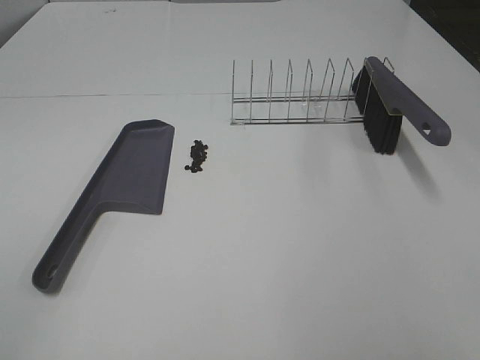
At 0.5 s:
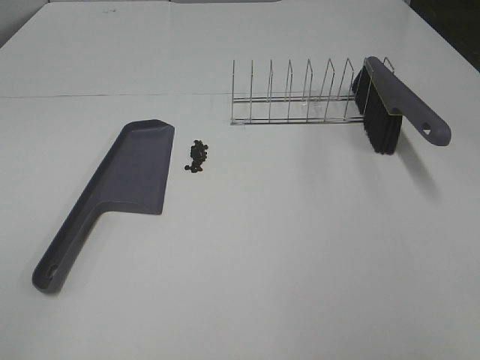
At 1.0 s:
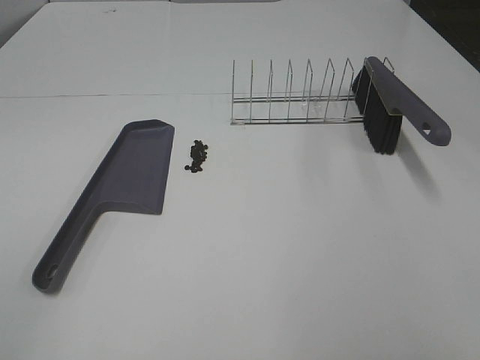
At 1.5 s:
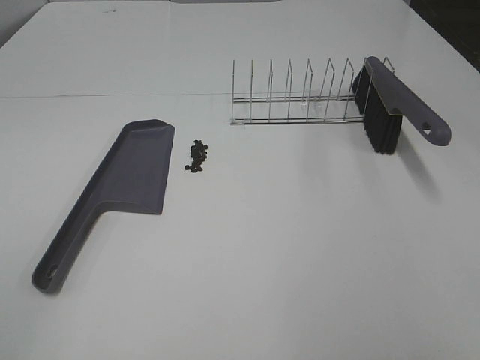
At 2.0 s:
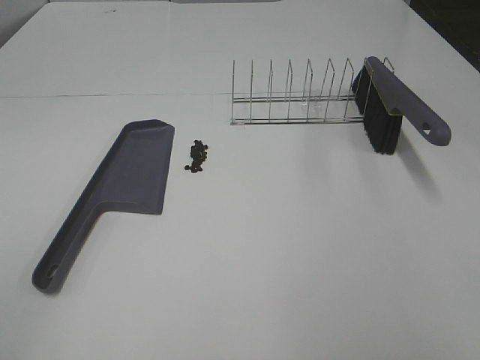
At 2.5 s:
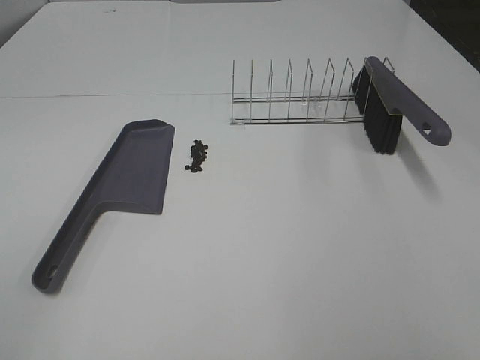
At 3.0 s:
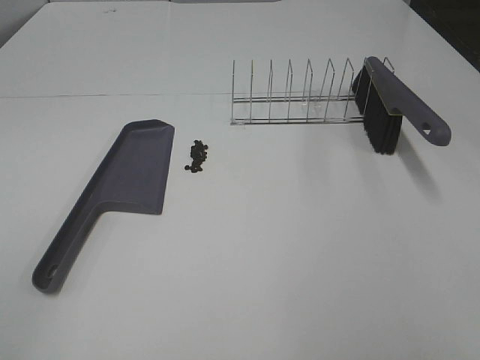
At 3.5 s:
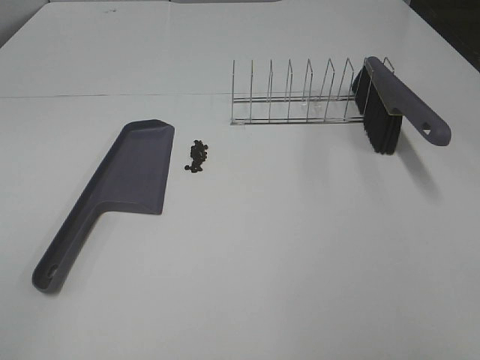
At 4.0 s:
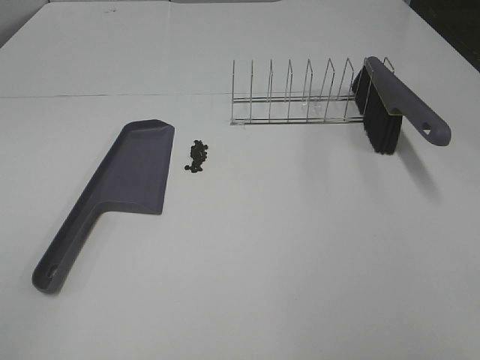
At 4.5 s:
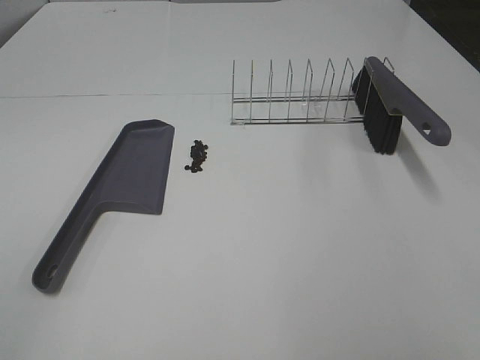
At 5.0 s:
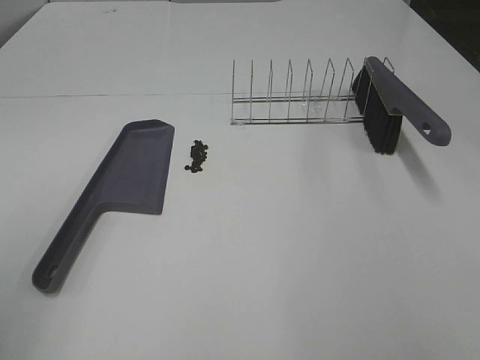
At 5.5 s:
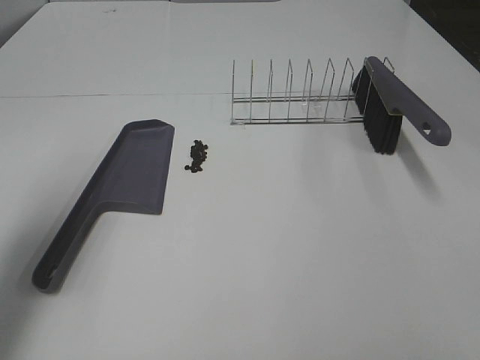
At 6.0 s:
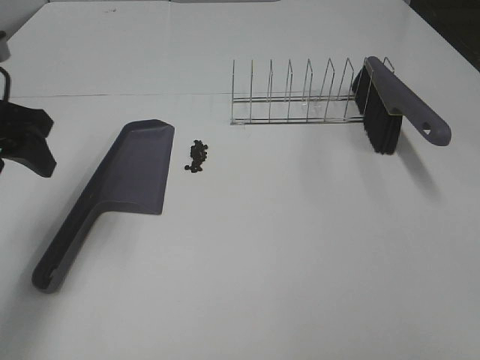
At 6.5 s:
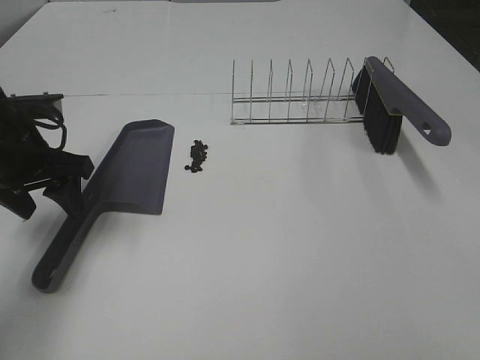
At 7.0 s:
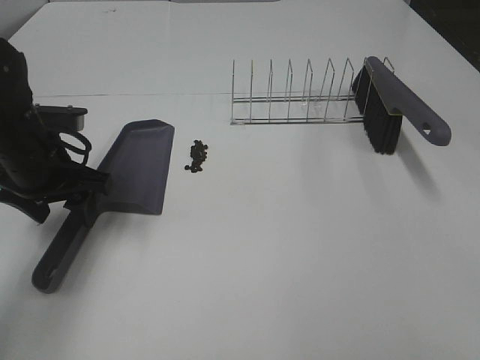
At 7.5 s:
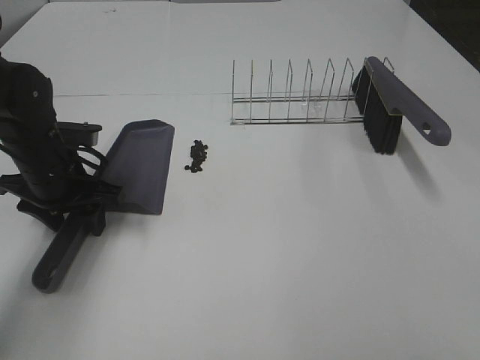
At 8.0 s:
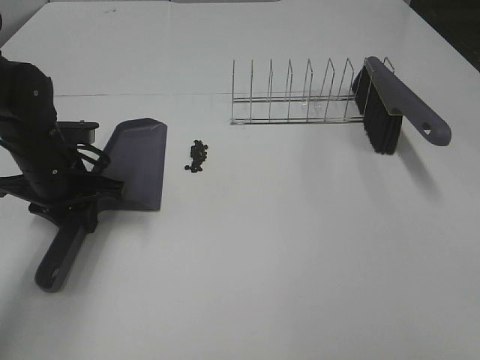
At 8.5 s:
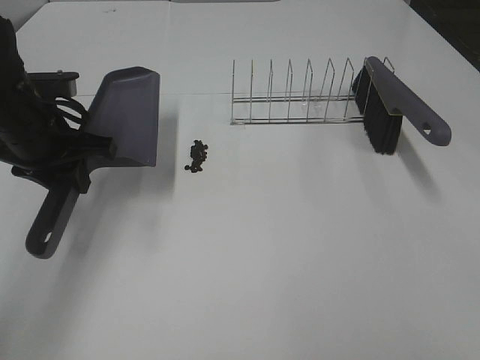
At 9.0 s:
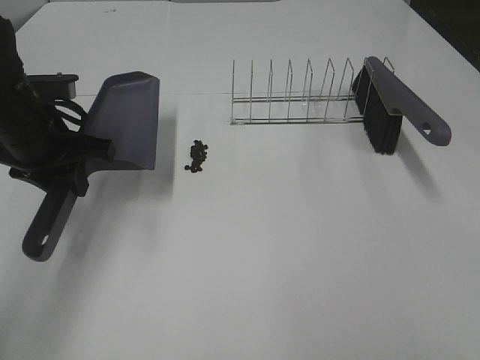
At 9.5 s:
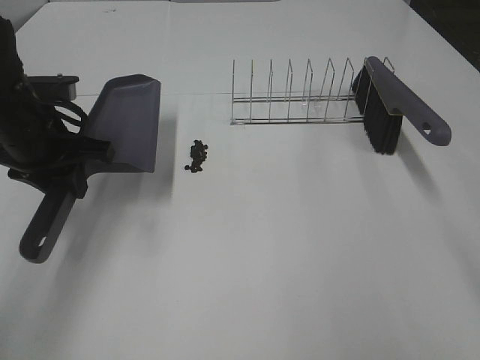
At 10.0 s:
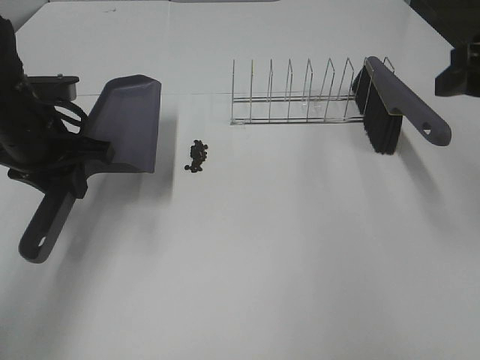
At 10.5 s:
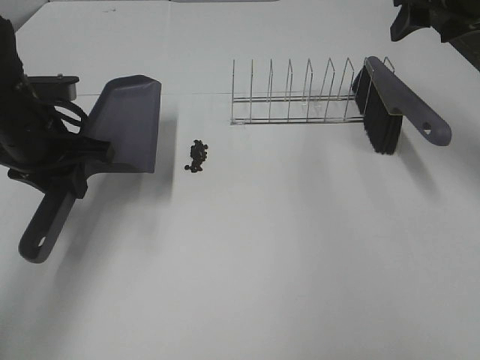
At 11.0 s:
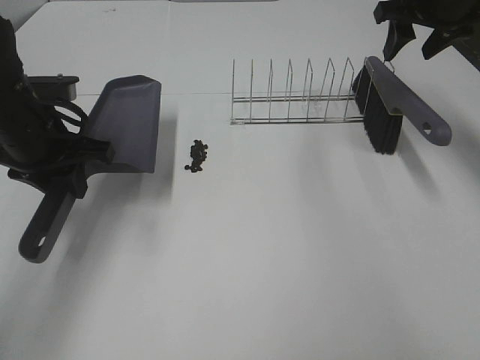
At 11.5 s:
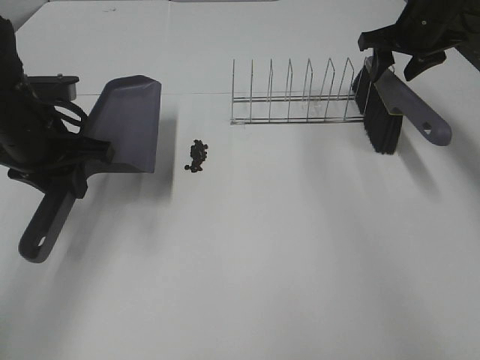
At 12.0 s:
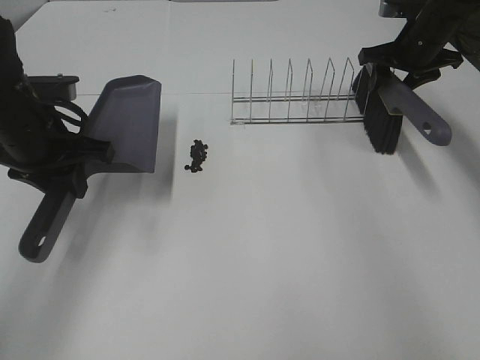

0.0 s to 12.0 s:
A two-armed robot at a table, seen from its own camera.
Task of the whole recording: Sweep Coffee Bean.
Step, 0.0 to 8.0 s: Left hand: grab the dustpan.
0.0 to 4.0 s: Both grippers stay about where they are.
4.0 to 6.0 s: The left gripper is displaced forward by some 30 cm.
6.0 to 8.0 s: The left gripper heads downward, covering roughly 15 cm, and closes up.
8.0 to 10.0 s: The right gripper shifts roughly 25 cm forward. Meanwhile the left gripper travels upward by about 5 cm.
10.0 to 12.0 s: The right gripper goes about 30 cm forward and downward.

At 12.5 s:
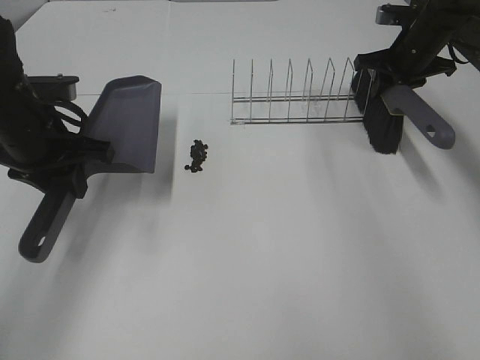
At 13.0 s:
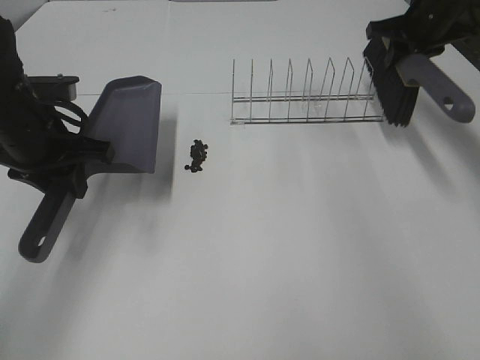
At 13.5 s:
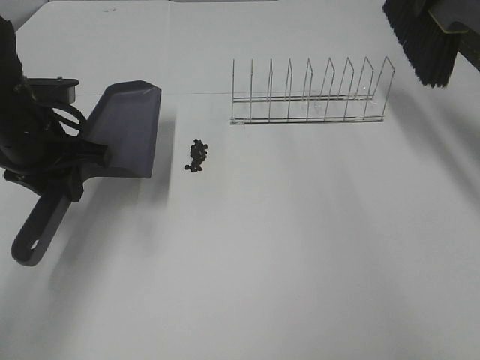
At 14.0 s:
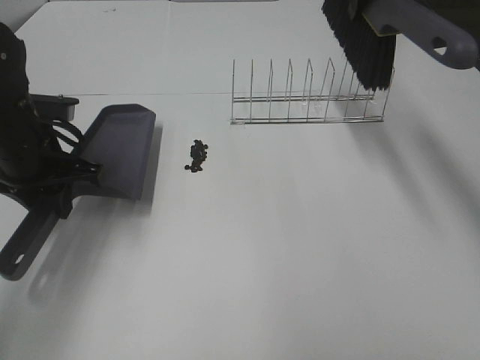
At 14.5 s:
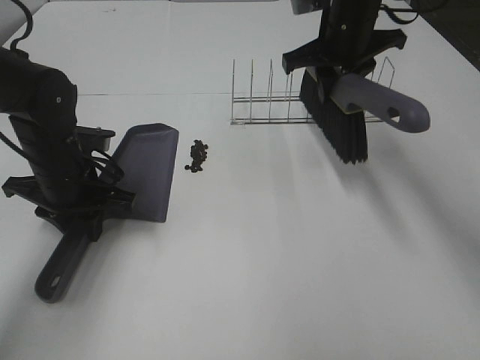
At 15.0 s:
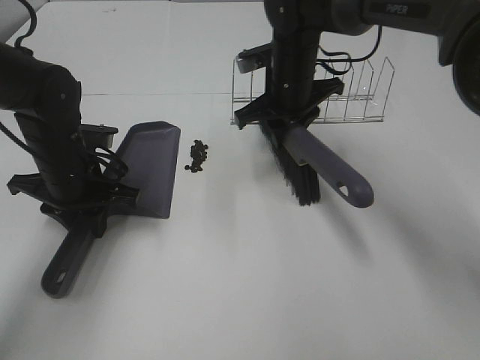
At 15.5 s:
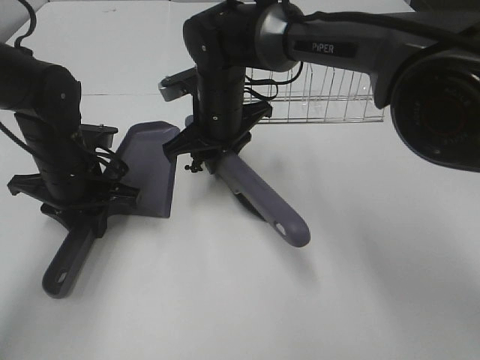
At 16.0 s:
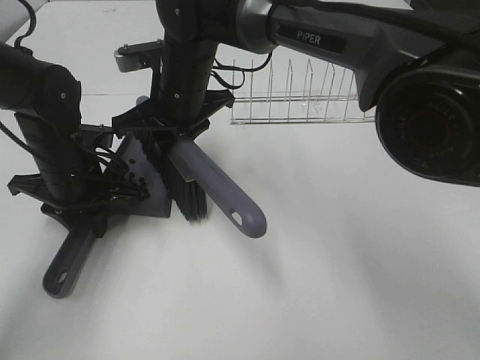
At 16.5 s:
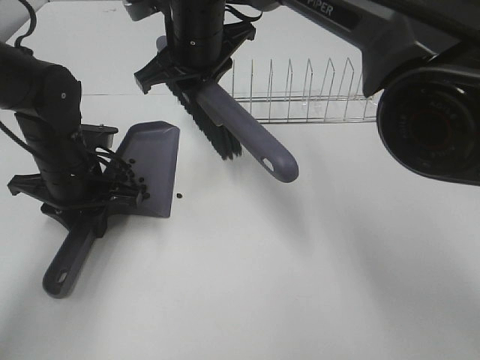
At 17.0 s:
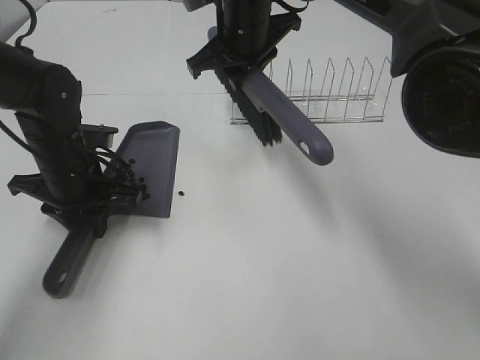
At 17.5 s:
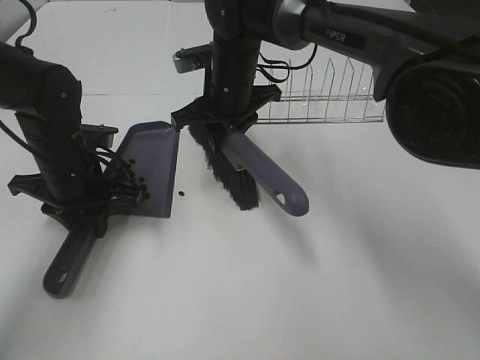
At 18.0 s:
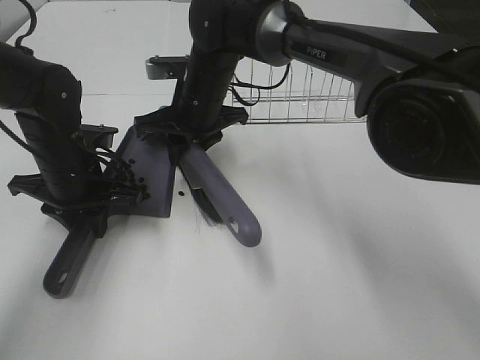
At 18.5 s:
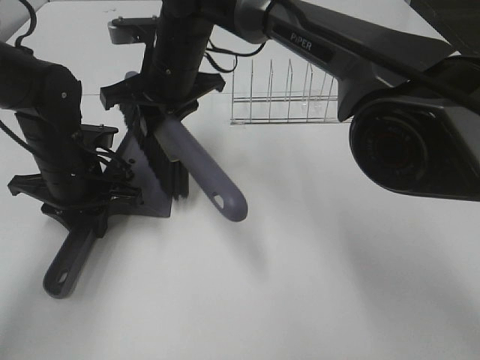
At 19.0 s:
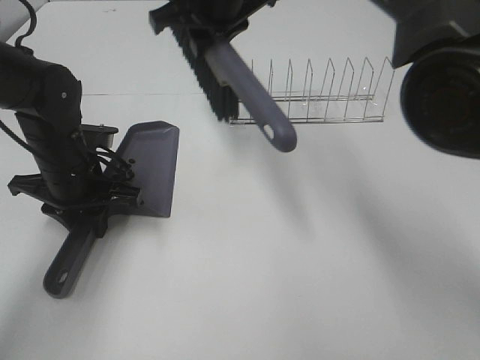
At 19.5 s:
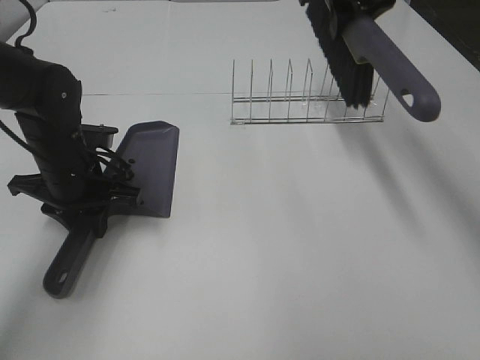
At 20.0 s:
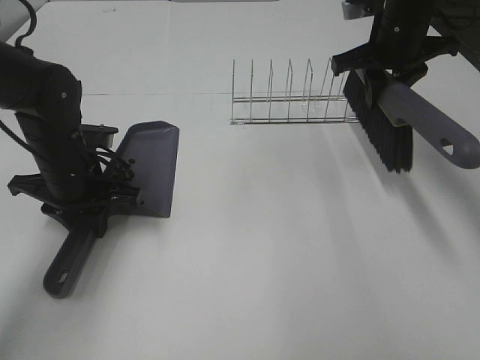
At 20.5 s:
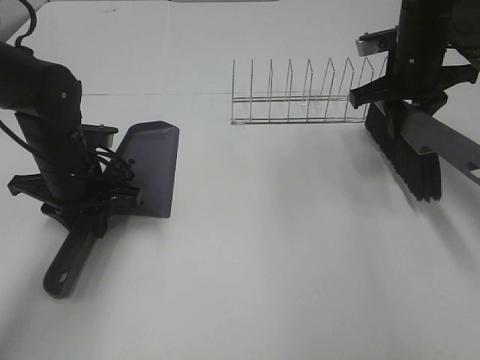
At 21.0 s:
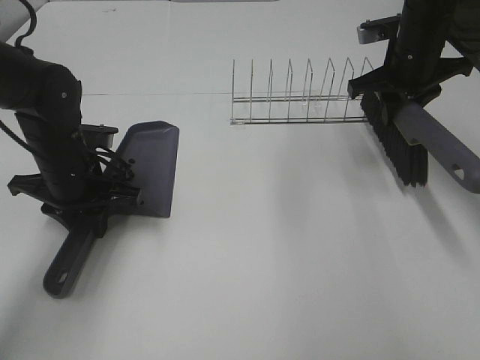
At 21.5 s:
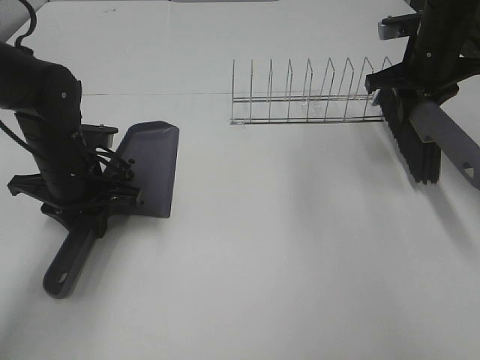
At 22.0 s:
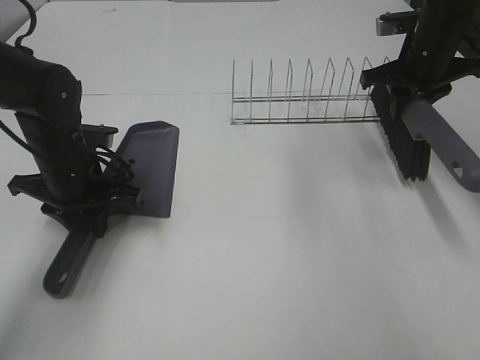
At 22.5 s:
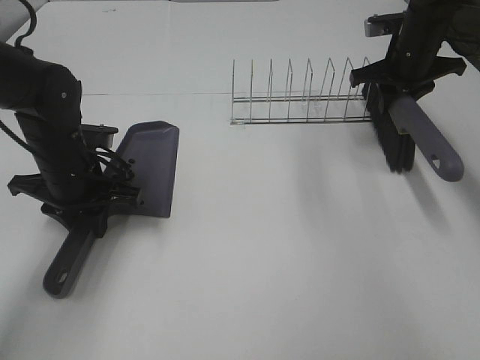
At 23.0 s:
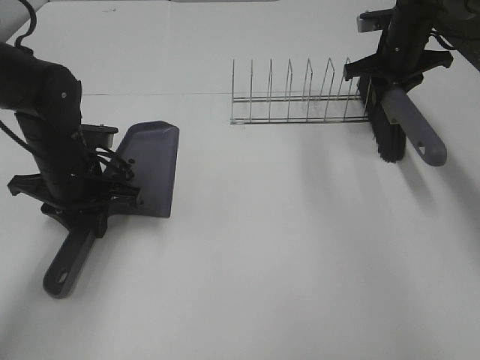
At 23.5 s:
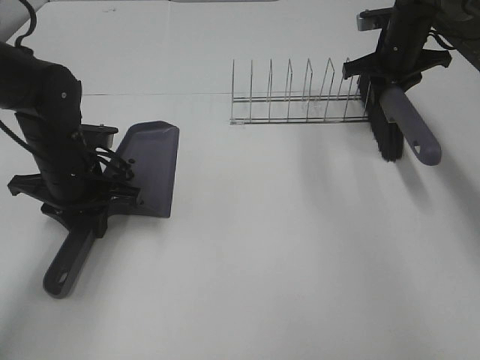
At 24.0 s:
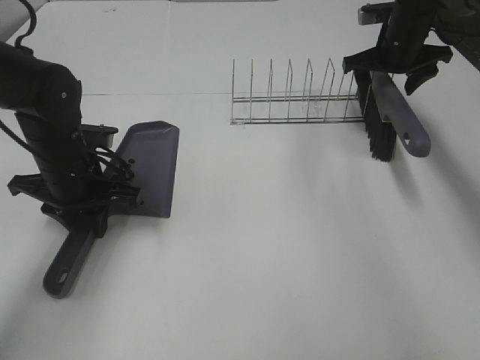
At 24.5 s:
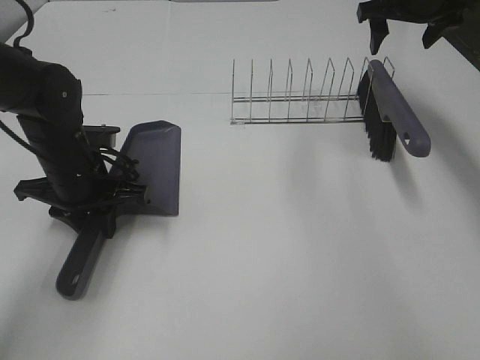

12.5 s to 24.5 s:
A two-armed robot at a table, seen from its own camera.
Task of the whole recording: Sweep Coffee Bean.
Step, 12.5 to 14.5 s: Left hand: move the dustpan to the left side of the coffee beans.
Step, 13.0 to 18.5 s: Right hand:sweep the coffee beans into the dustpan.
Step, 19.0 to 24.0 s: Right hand:place the broom on the rack.
12.5 to 14.5 s: The left gripper shifts approximately 5 cm downward; the right gripper is displaced to the left, backward and upward by about 20 cm.
14.5 to 16.5 s: The right gripper shifts roughly 20 cm to the left.
18.5 to 20.5 s: The right gripper is displaced to the right by roughly 30 cm.
20.5 to 22.5 s: The right gripper is displaced forward by roughly 5 cm.
22.5 to 24.5 s: The right gripper heads upward, covering approximately 10 cm, and opens up.

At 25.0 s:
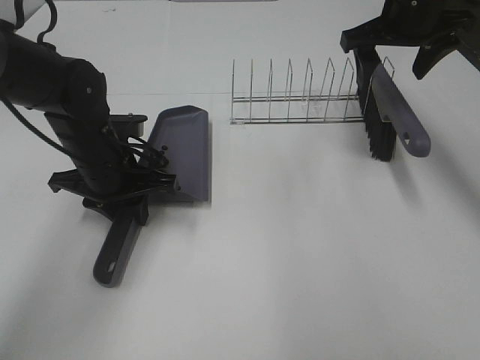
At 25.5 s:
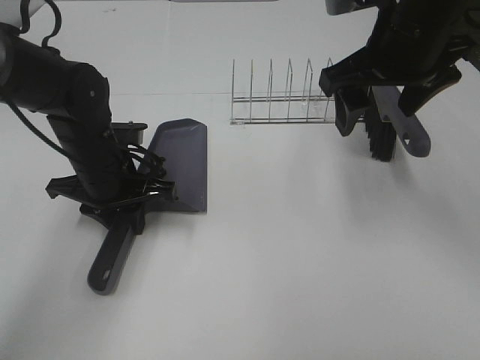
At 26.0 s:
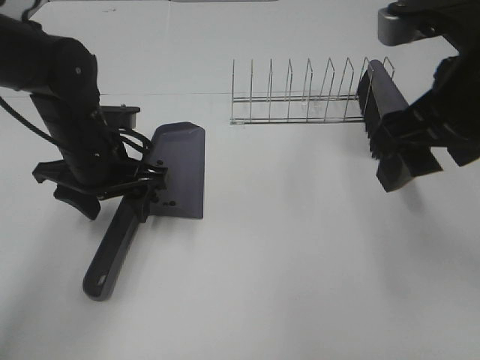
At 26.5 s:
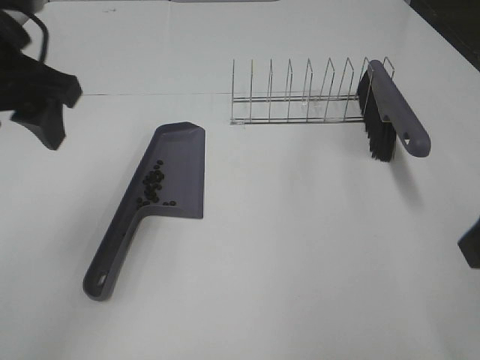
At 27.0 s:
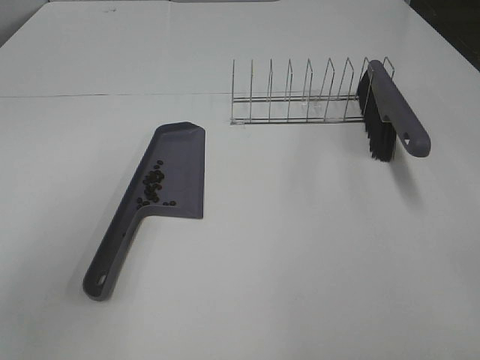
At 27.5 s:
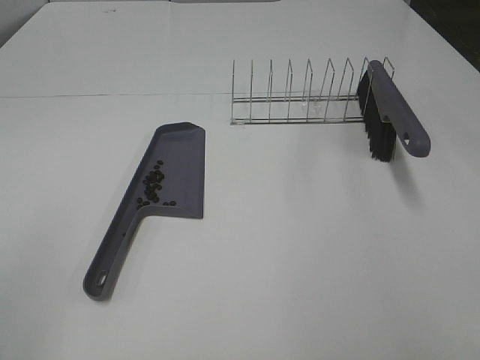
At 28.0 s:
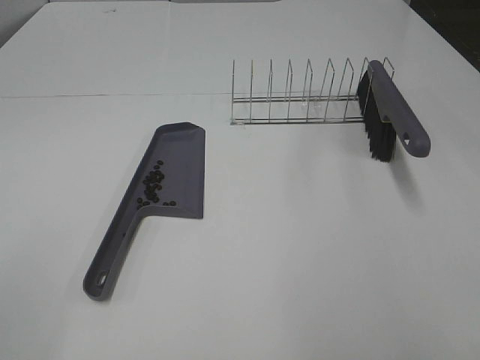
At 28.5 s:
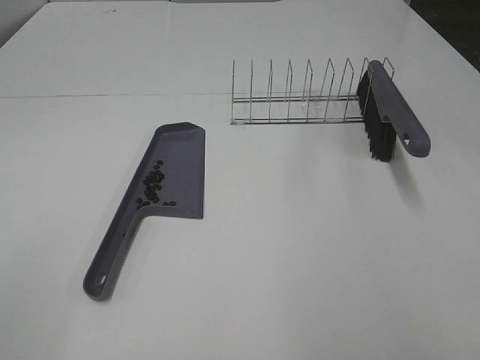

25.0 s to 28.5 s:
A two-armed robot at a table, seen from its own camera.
Task of the whole recording: Sweep Coffee Bean.
Step, 25.0 to 26.0 s: Left hand:place the dustpan on the table.
25.0 to 27.0 s: The right gripper is displaced backward by about 35 cm. The left gripper is displaced upward, backward and to the left by approximately 30 cm, and opens up.
27.0 to 28.5 s: The left gripper heads backward, covering approximately 15 cm.
